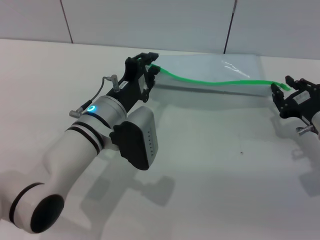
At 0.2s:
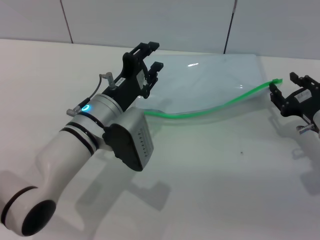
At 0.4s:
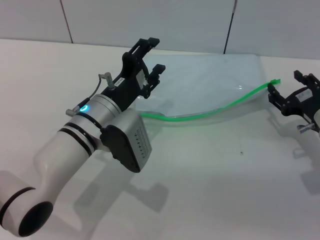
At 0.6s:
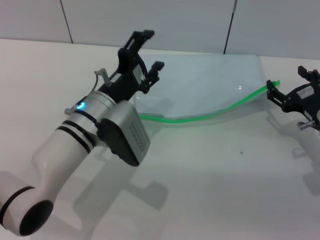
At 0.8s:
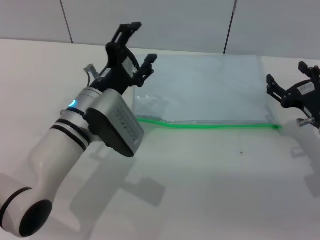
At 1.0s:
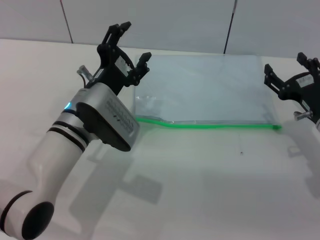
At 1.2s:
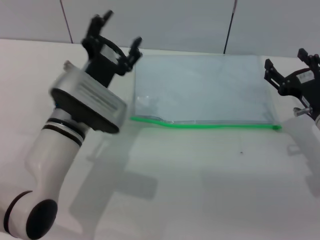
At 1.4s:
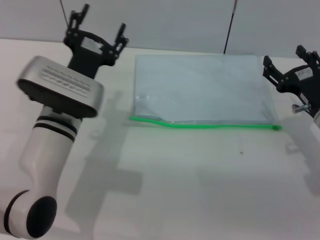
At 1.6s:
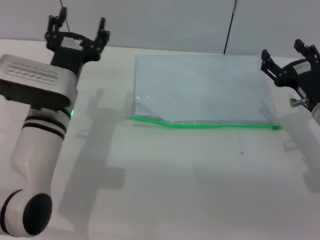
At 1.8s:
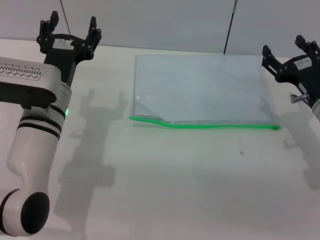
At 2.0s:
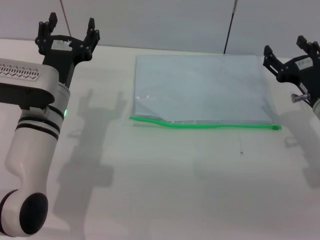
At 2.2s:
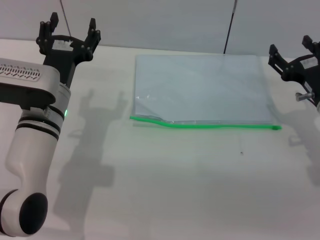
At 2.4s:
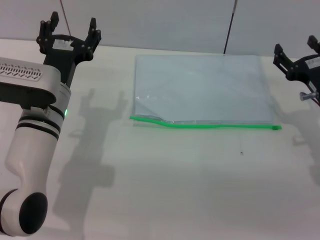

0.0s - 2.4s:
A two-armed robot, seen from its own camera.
Step, 0.0s - 0.8s: Place the transparent plastic bag.
0.0s - 1.2s: The right gripper opens its fingers, while the left gripper opens its fingers.

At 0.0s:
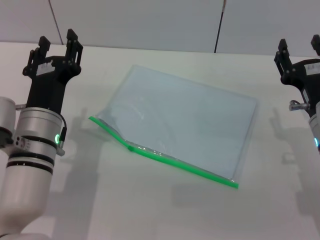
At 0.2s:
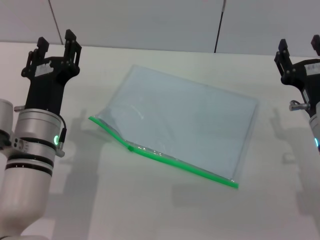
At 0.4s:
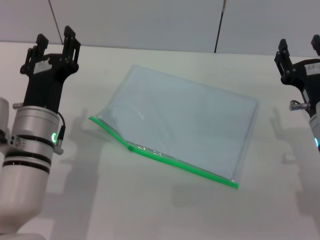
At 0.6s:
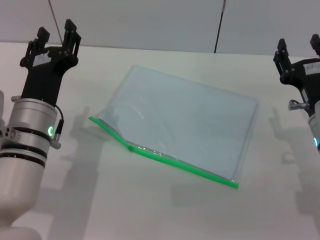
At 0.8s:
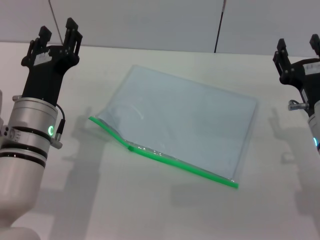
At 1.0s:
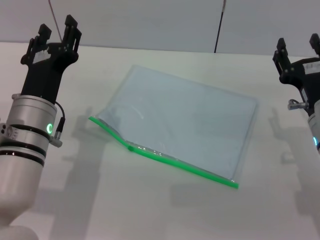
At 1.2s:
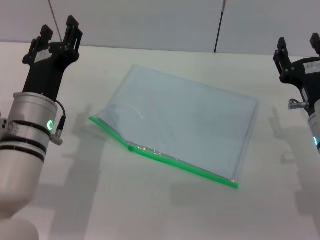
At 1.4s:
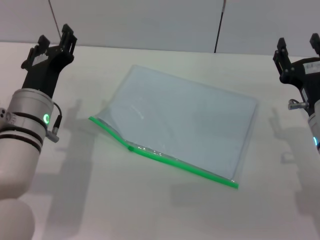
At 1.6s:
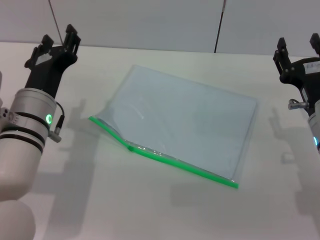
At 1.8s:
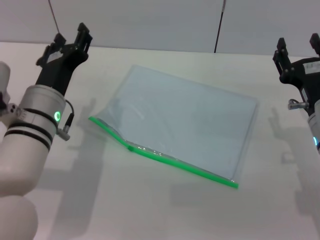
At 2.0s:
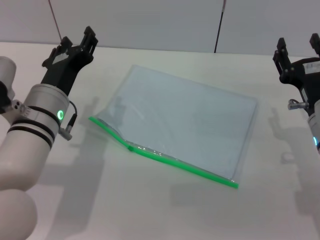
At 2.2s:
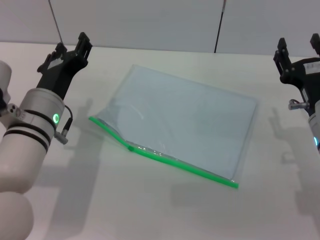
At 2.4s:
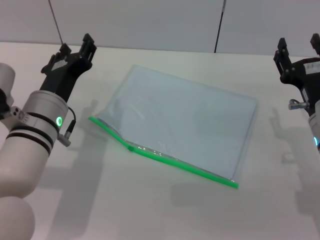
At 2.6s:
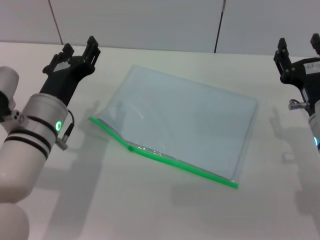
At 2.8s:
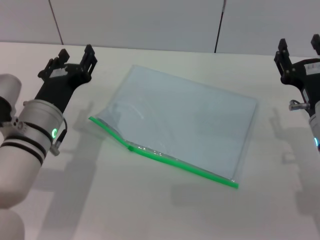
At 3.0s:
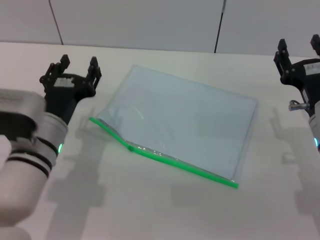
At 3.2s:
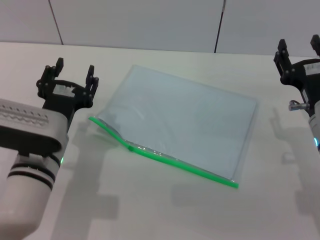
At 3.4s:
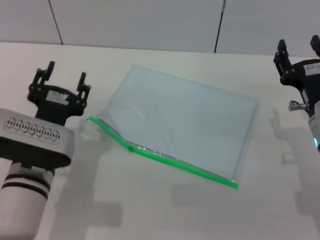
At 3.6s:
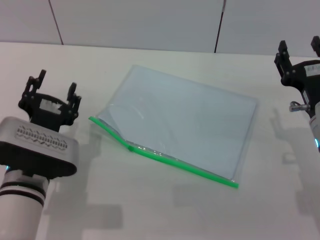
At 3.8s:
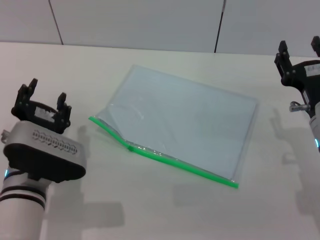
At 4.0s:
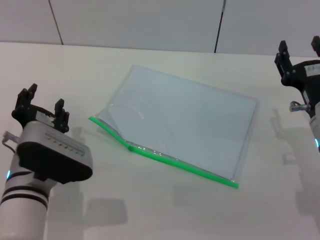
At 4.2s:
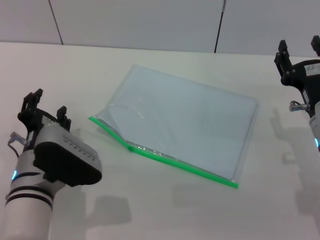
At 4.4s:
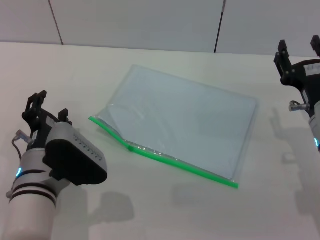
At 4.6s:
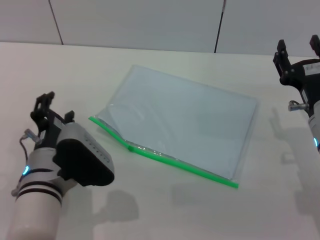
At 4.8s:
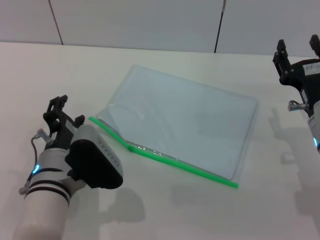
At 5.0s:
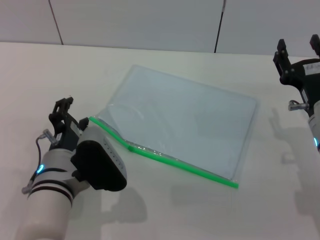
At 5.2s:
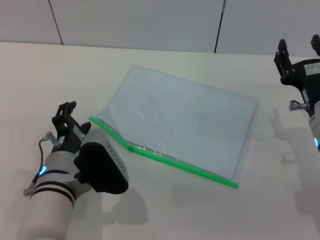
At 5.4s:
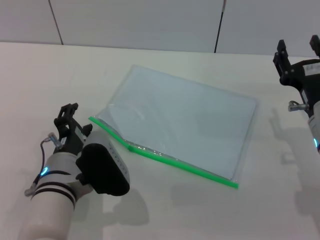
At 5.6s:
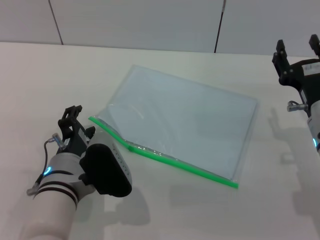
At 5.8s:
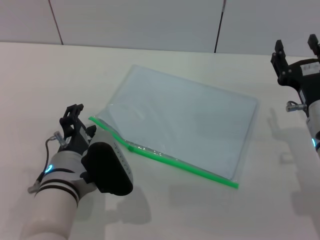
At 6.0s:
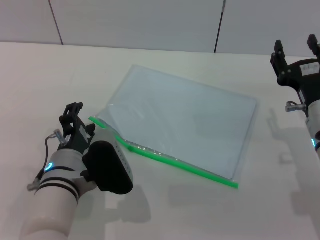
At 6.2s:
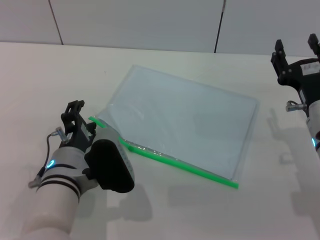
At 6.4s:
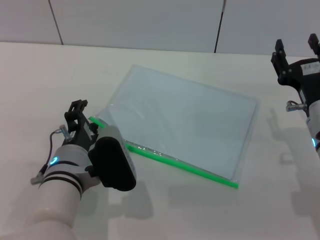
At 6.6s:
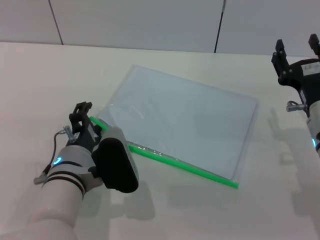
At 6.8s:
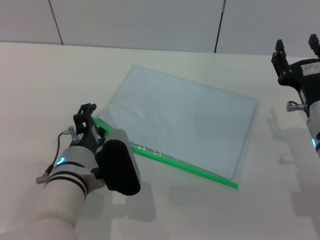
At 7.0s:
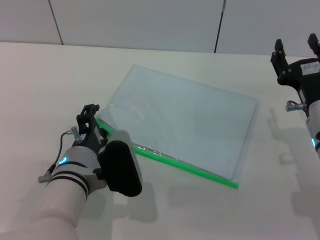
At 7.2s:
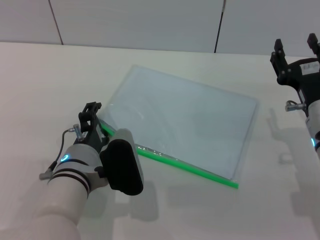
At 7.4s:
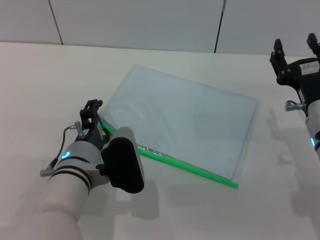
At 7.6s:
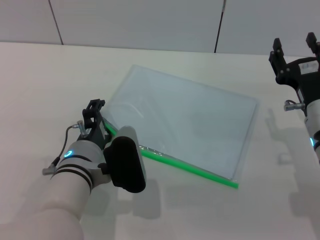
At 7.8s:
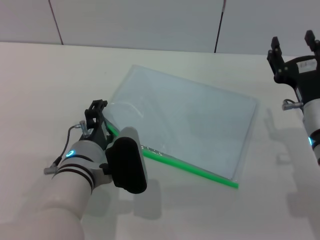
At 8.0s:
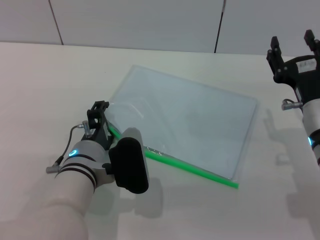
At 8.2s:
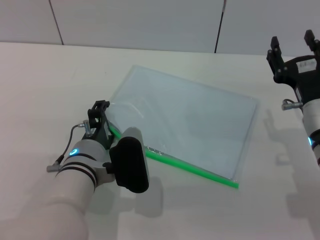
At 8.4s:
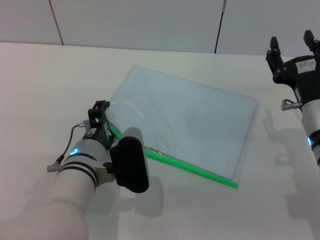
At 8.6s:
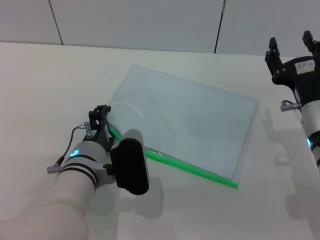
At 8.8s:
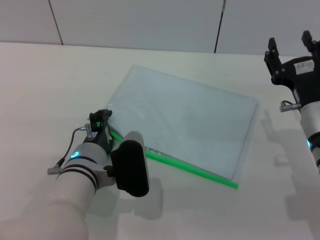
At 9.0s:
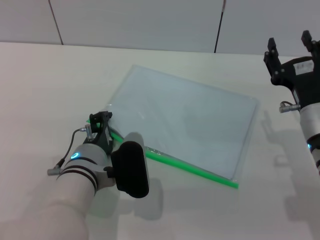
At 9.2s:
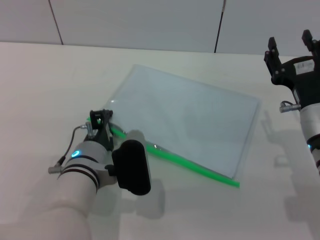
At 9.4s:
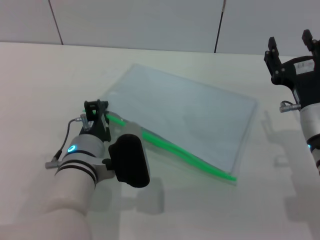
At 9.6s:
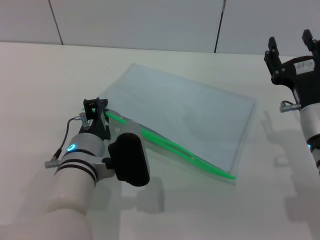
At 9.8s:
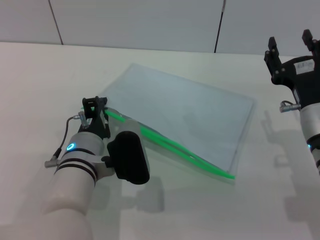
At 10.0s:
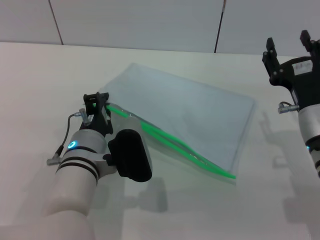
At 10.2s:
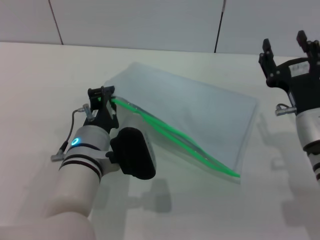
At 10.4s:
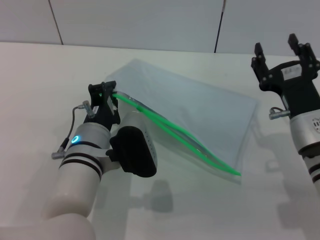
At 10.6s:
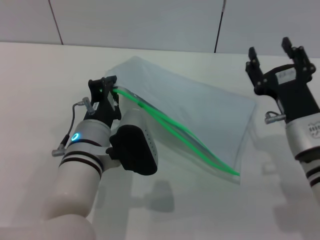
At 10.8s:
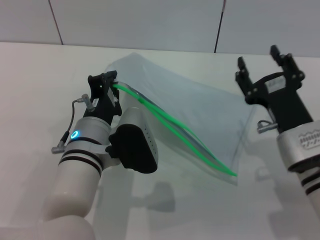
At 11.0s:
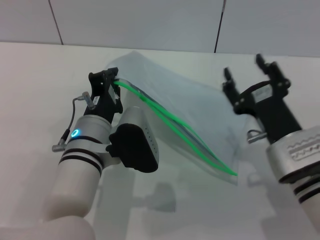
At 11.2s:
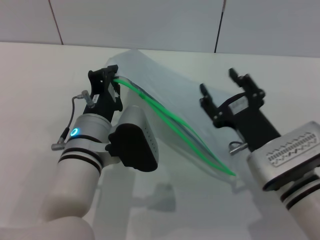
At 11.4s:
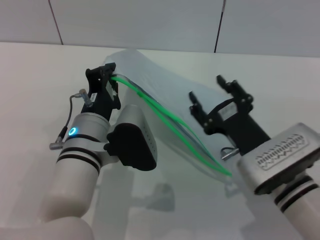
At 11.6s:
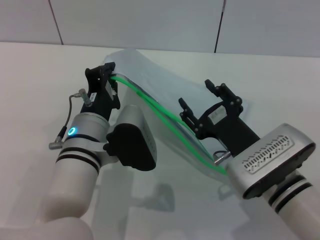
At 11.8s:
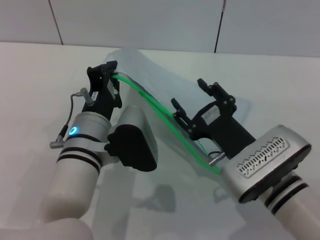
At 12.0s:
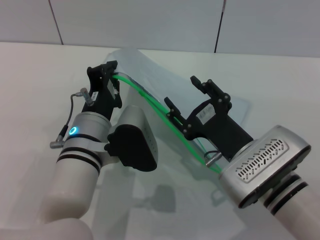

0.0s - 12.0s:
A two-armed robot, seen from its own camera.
Step, 0.0s - 10.2s: Pick up the transparent plastic bag with the left gripper.
0.0s - 1.6s: The grippers make only small movements.
4.4s - 6.0s: The grippers make only small movements.
6.0s - 7.6s: There are only small adjustments of the grippers.
7.6s - 9.0s: The left gripper closes its fingers.
9.0s - 10.4s: The left gripper closes up.
10.4s - 12.0s: The right gripper moves to the left, some 5 cm.

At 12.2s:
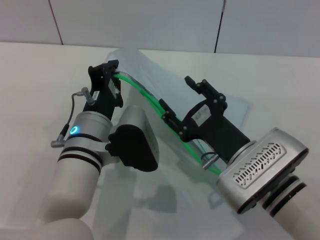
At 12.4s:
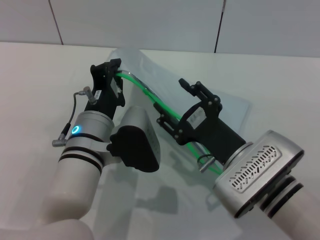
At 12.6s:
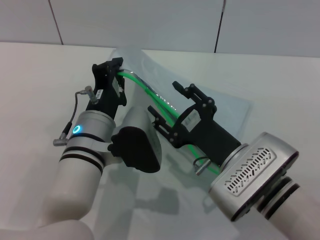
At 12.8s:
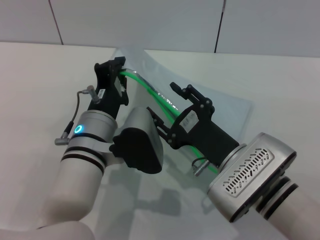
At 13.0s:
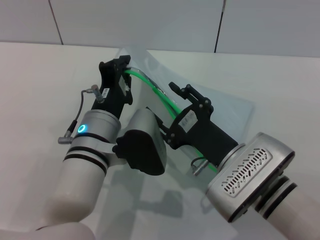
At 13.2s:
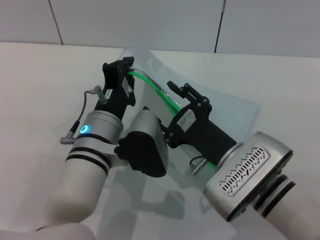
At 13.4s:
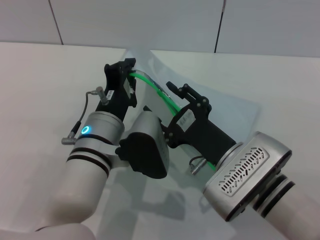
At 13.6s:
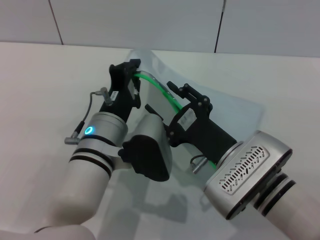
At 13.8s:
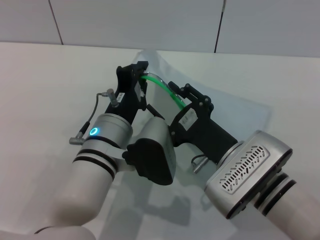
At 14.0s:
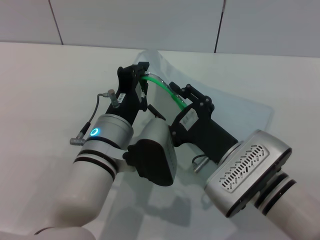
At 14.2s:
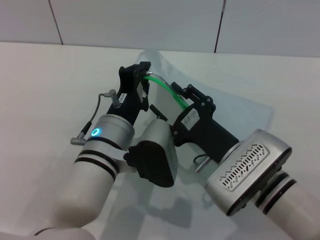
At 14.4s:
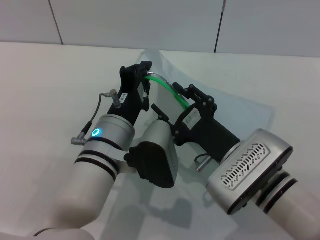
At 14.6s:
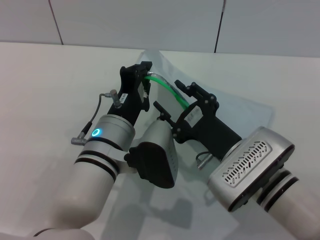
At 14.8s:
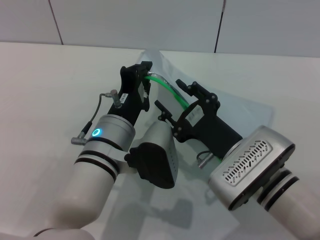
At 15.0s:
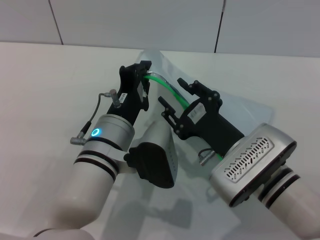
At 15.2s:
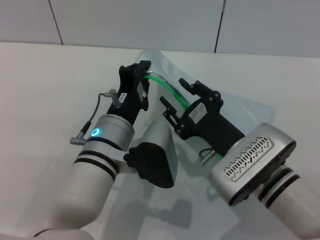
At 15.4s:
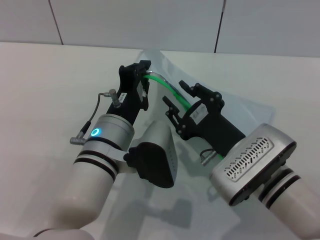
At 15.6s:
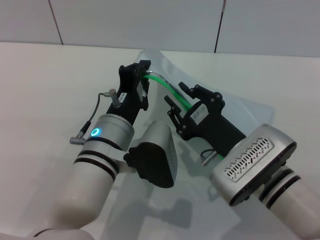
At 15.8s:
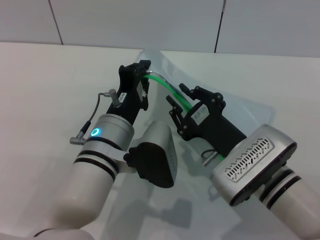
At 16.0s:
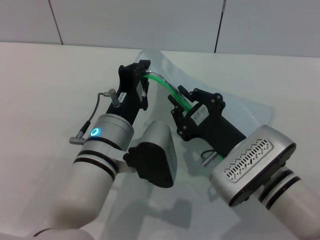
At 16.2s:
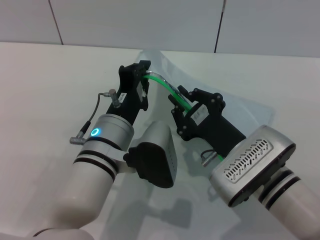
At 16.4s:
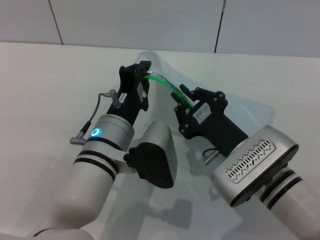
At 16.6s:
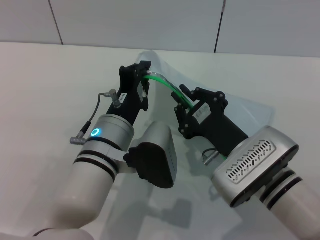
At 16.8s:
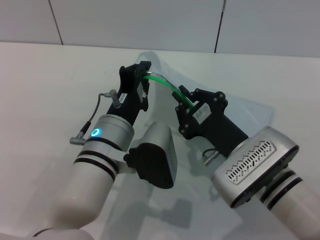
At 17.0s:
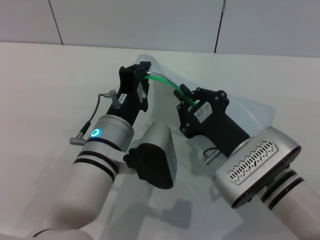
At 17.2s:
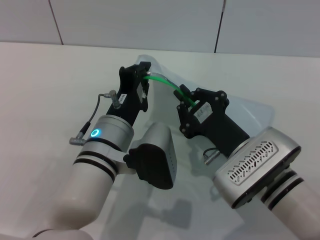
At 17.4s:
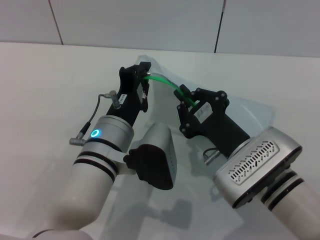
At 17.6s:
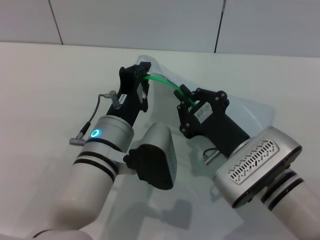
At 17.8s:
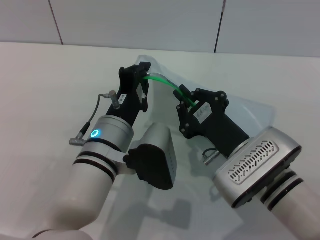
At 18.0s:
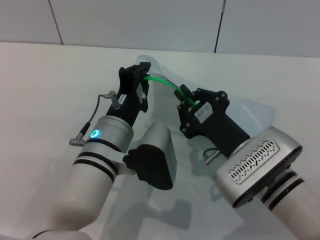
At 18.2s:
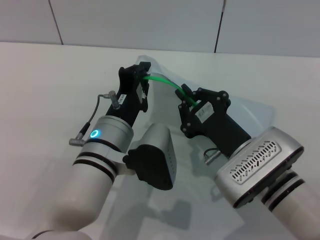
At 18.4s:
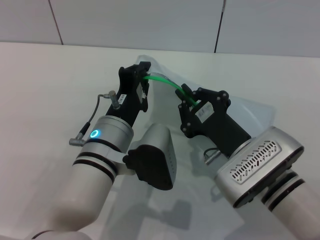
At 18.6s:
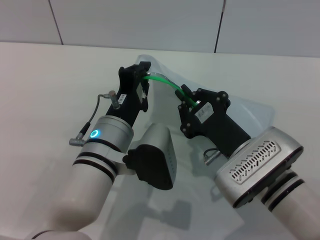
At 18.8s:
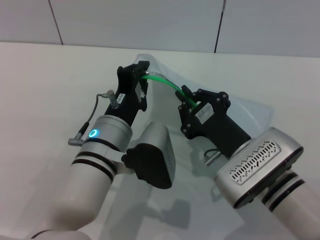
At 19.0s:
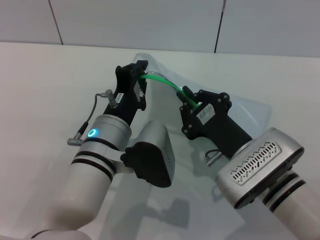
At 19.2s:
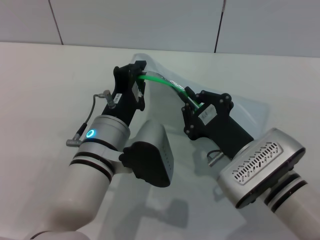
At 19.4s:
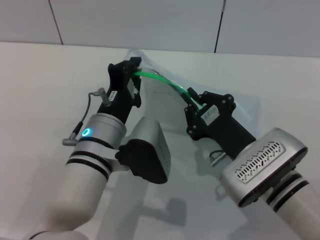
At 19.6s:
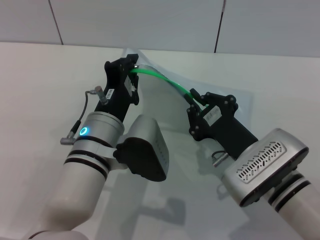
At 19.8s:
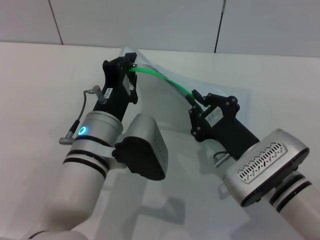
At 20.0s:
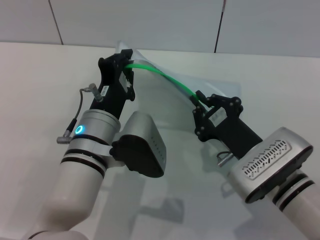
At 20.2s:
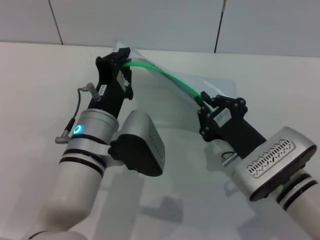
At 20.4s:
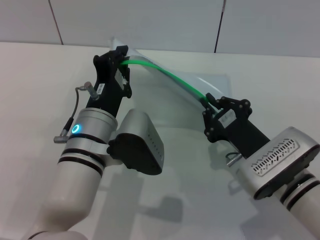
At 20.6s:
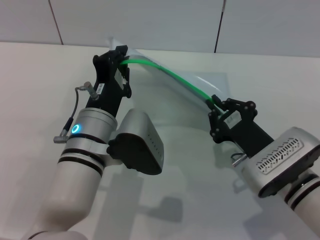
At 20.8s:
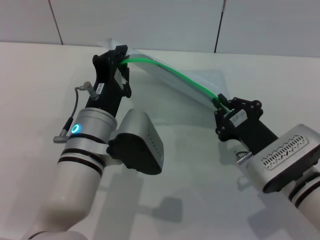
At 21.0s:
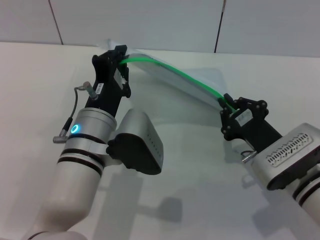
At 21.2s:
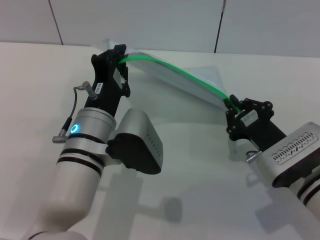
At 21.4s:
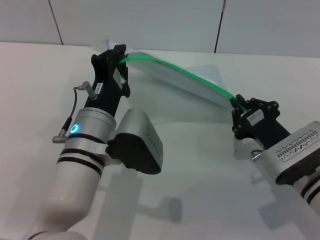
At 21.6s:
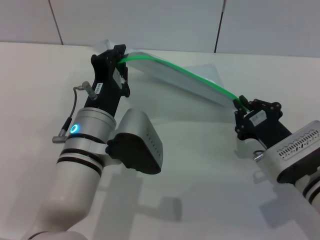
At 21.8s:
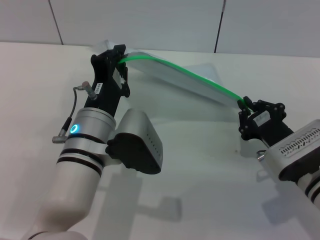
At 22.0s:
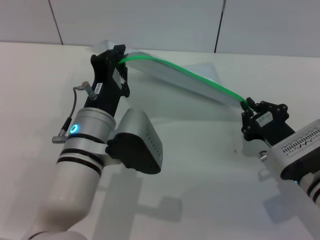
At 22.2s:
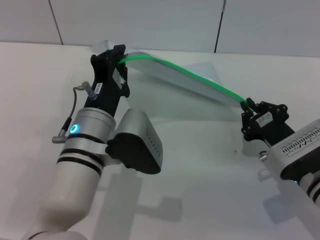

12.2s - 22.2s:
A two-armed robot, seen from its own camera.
13.6s - 15.0s: Neither gripper changes place.
15.0s - 16.4s: The right gripper closes.
16.4s - 19.4s: The two grippers keep their place.
20.8s - 22.2s: The grippers stay close to where they were, moving slightly.
